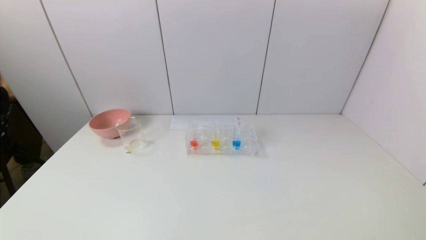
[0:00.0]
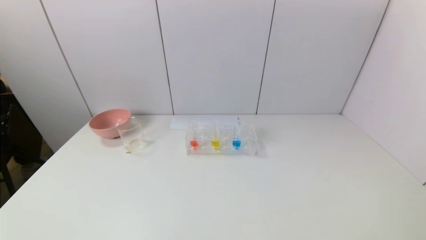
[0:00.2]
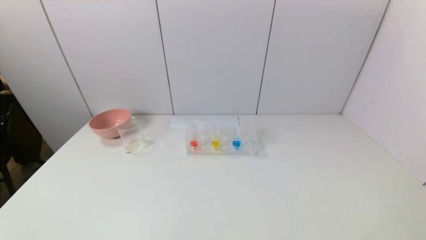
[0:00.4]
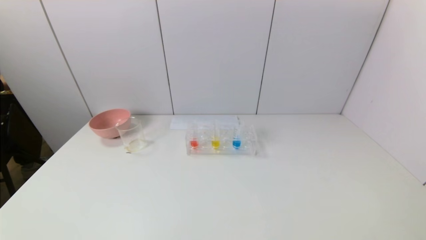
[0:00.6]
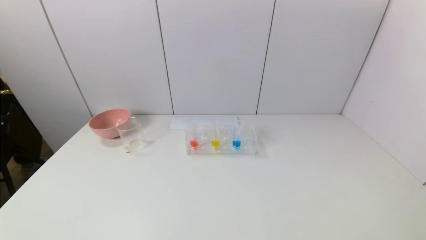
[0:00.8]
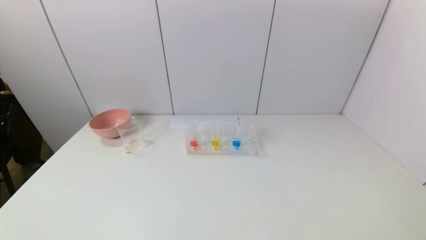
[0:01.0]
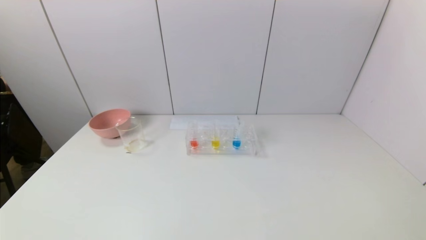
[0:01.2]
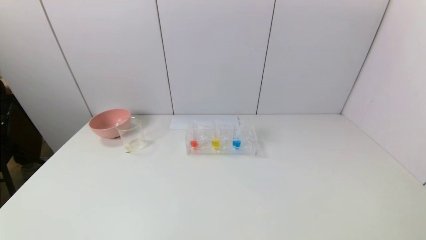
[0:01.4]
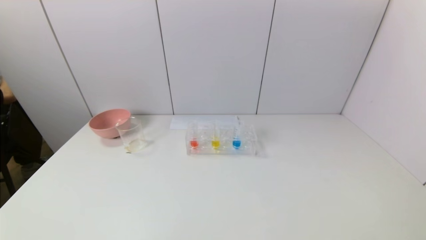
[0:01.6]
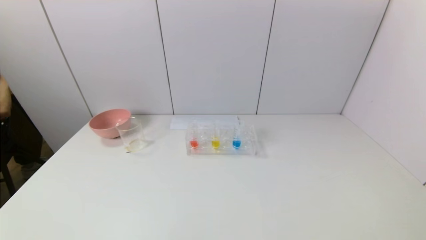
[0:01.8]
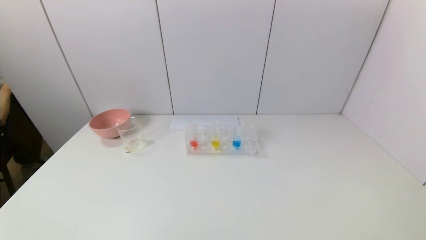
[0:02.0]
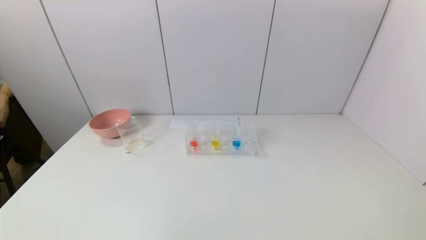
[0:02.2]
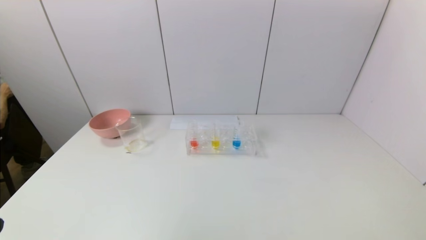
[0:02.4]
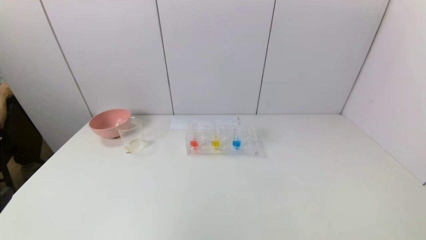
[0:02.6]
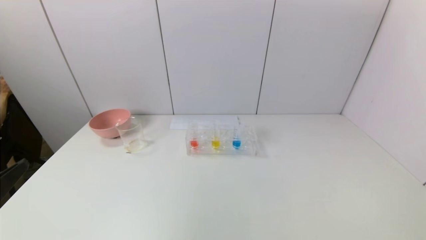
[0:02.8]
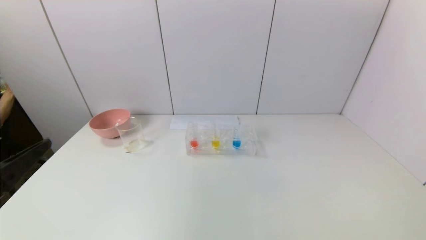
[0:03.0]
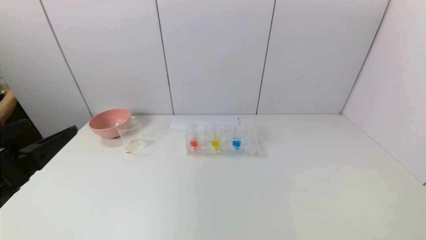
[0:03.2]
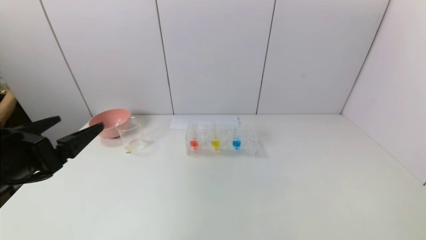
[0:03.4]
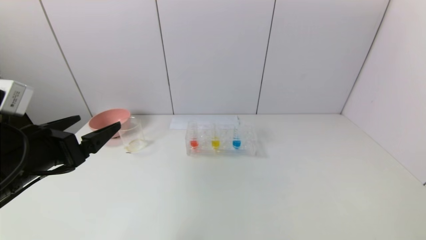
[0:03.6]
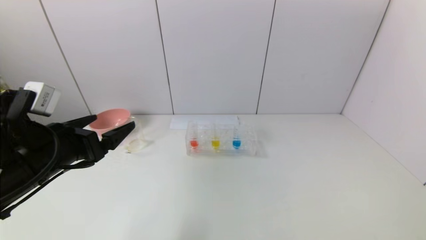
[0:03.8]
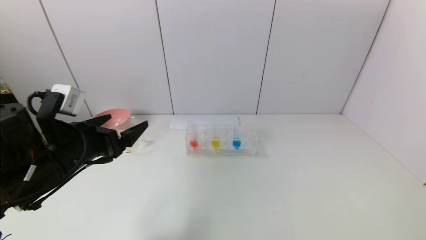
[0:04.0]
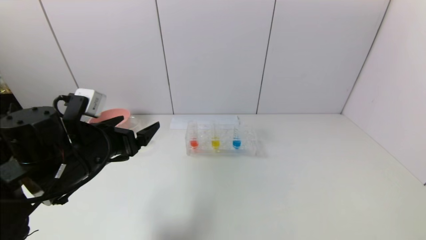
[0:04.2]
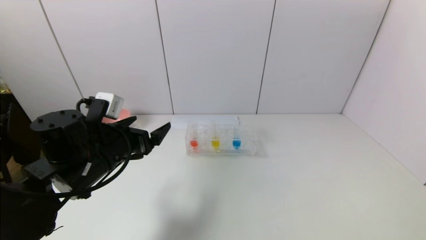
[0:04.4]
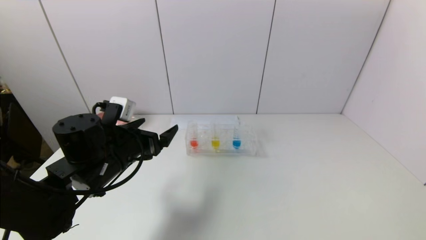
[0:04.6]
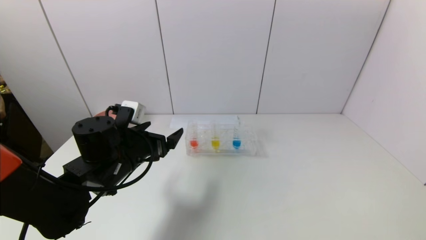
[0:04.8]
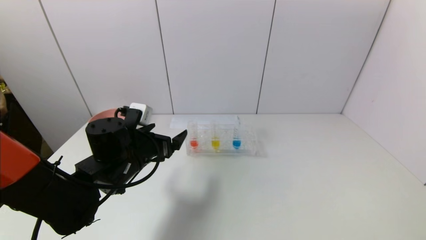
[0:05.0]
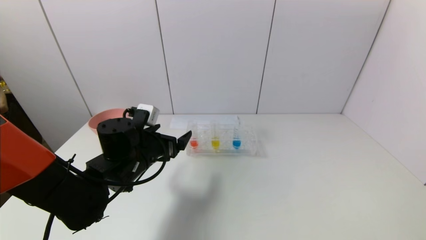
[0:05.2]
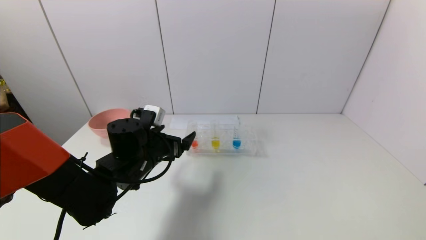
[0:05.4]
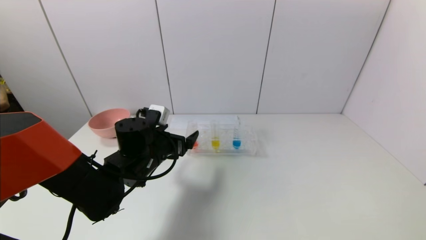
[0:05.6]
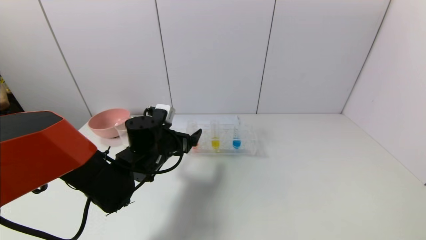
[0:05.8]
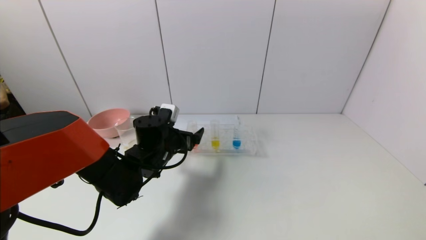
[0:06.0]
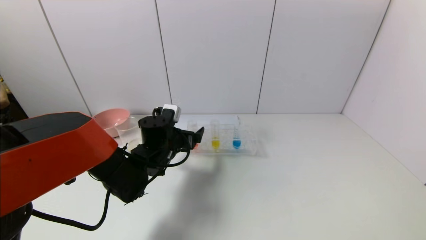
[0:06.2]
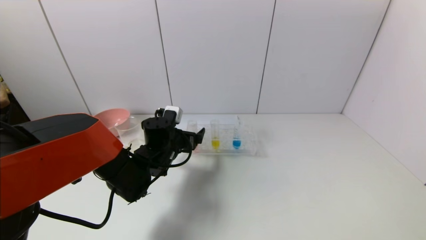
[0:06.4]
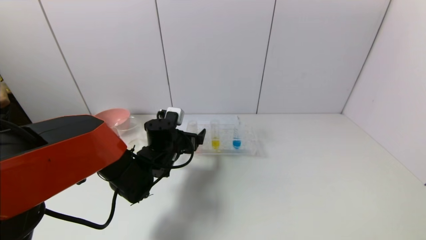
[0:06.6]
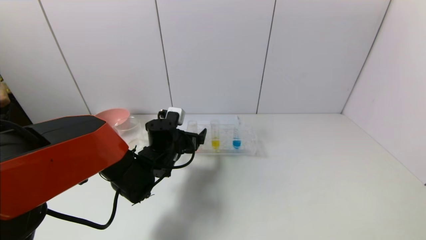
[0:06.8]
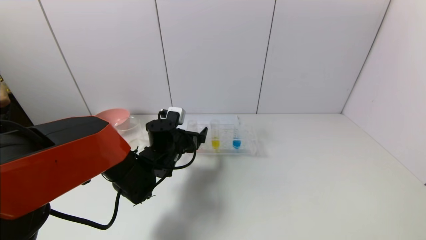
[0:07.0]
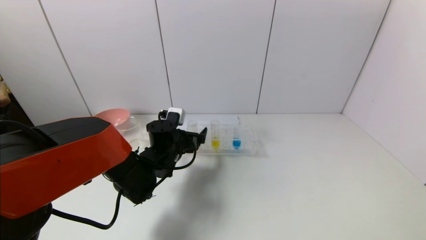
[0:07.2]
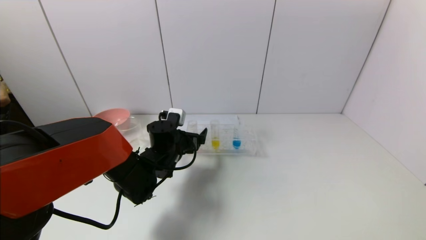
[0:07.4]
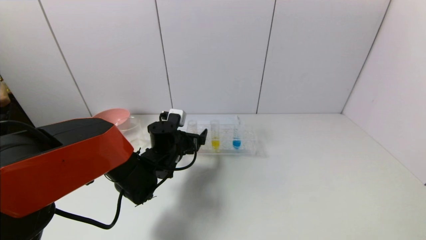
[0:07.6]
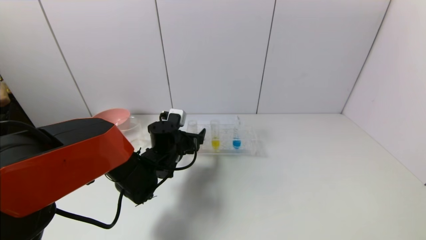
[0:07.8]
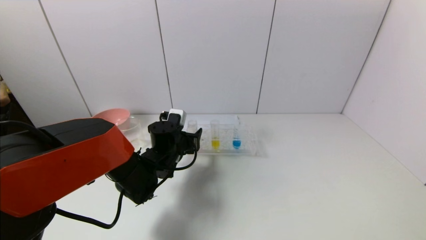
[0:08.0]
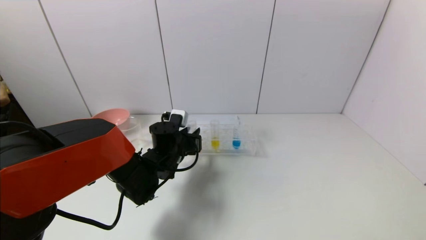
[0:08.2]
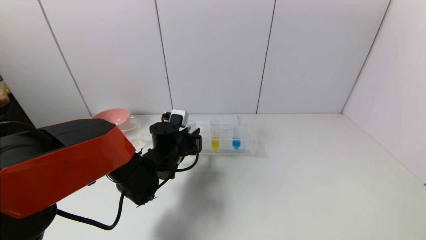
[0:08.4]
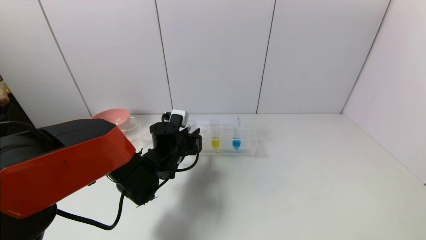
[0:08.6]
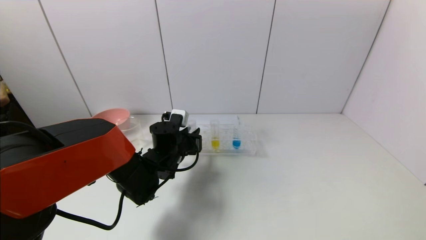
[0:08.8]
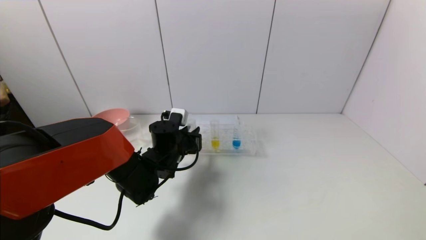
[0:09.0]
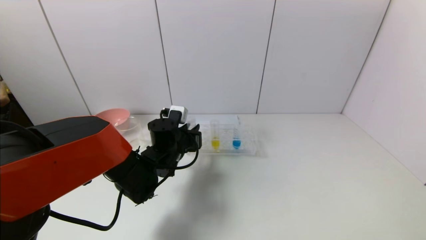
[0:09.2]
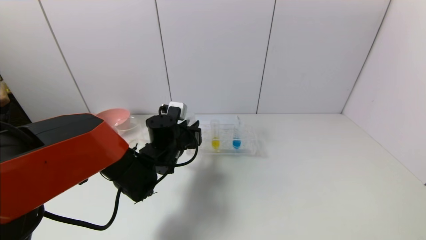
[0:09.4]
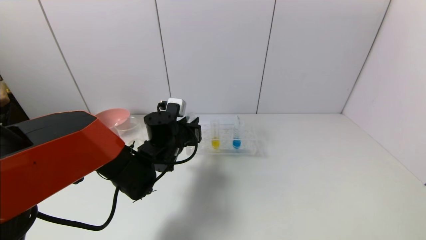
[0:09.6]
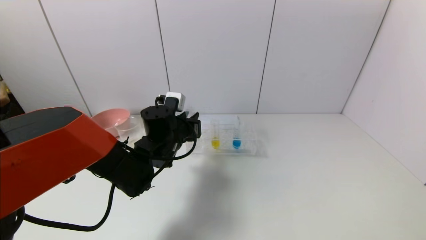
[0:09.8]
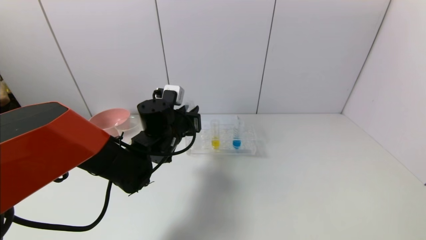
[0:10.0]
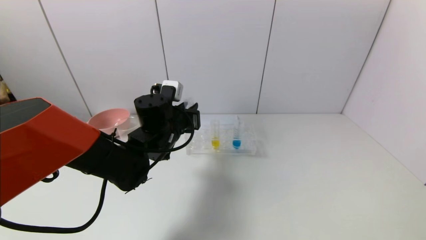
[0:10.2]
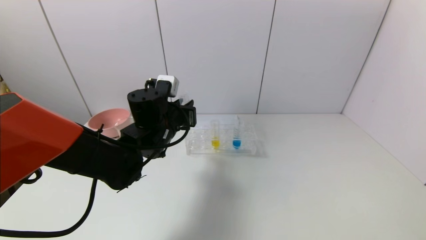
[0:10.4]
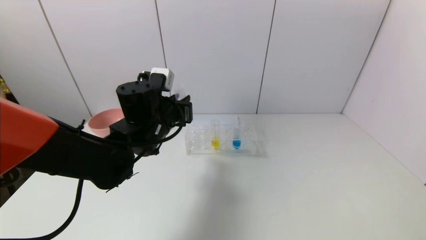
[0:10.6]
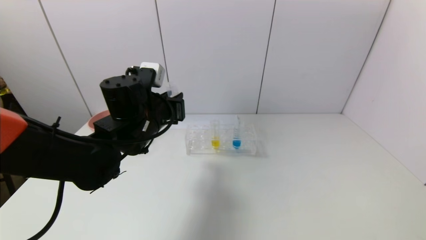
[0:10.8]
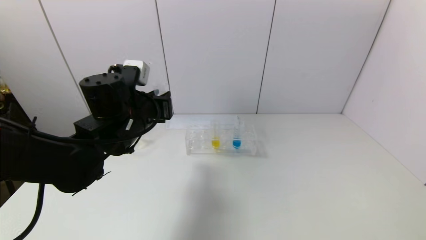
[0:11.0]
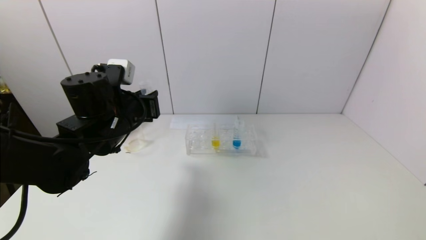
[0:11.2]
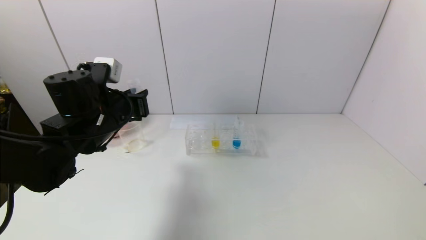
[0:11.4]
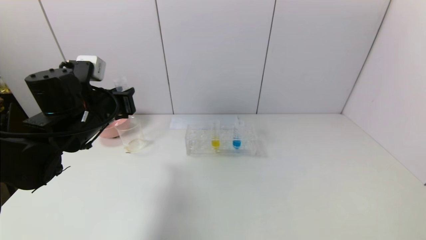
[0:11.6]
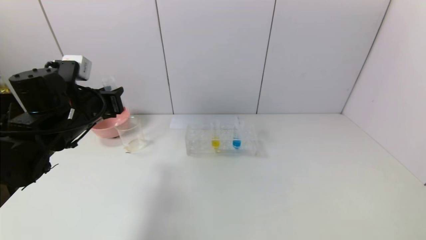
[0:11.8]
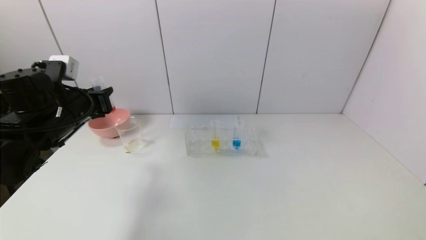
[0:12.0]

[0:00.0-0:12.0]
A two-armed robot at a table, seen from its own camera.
Task of the whole recording: pick up the test tube with yellow pigment and the test tube with red pigment by grippers and pour them into the beaker.
Step, 0:00.0 to 0:08.4: Grasp the red reagent with the left gripper.
0:00.0 to 0:01.6: Neither gripper changes place.
0:01.6 to 0:03.0: The left gripper heads upward and forward, covering roughly 20 cm.
0:03.0 to 0:04.4: The left gripper heads forward and to the right, covering approximately 20 cm.
0:04.4 to 0:06.0: The left gripper travels forward, to the right and downward by about 15 cm.
0:06.0 to 0:07.6: There are only small adjustments of the grippers.
0:07.6 to 0:09.0: The left gripper closes.
0:09.0 to 0:10.4: The left gripper is displaced upward by some 10 cm.
0:10.4 to 0:12.0: The left gripper is displaced to the left by about 20 cm.

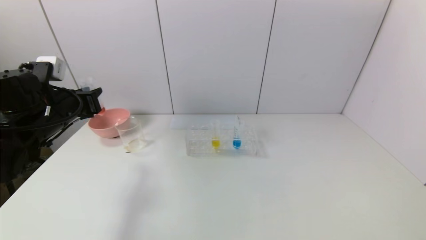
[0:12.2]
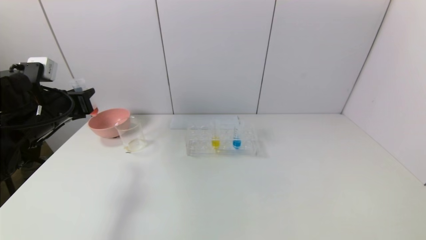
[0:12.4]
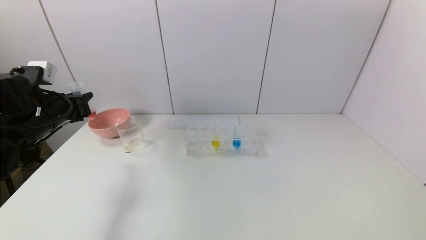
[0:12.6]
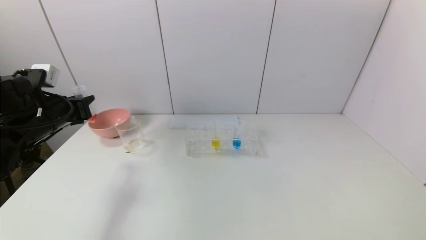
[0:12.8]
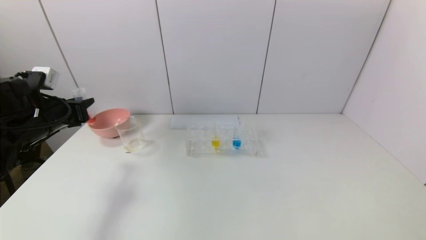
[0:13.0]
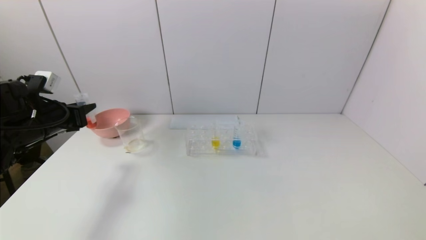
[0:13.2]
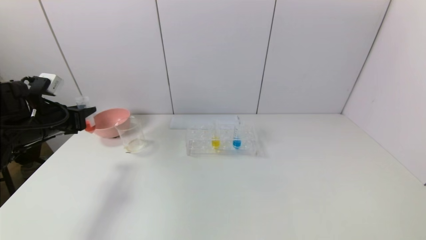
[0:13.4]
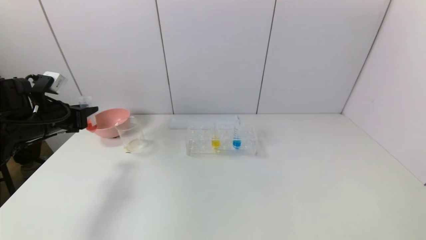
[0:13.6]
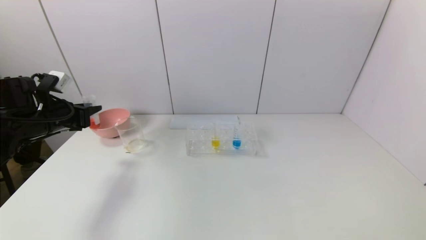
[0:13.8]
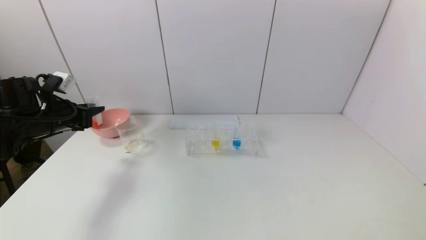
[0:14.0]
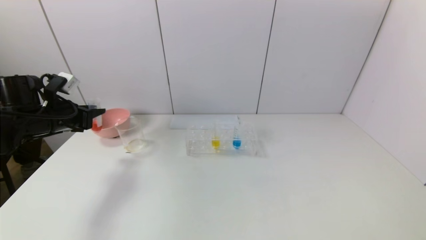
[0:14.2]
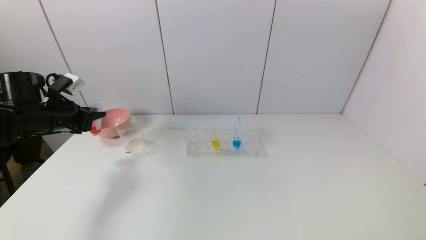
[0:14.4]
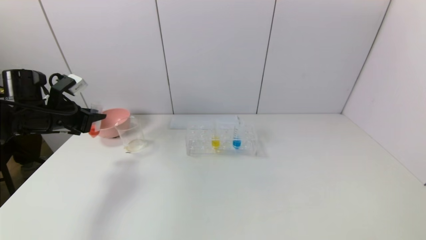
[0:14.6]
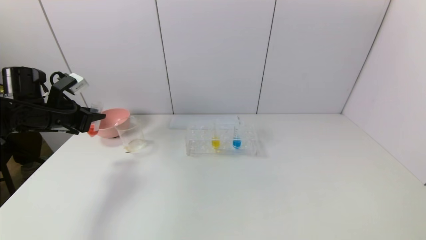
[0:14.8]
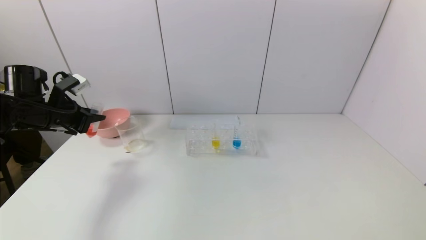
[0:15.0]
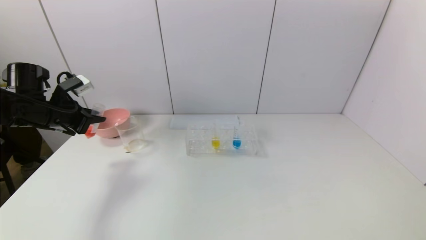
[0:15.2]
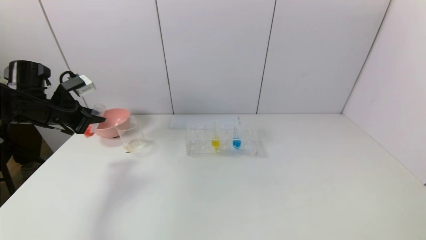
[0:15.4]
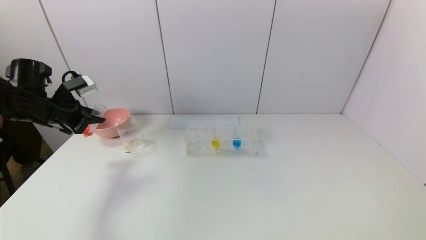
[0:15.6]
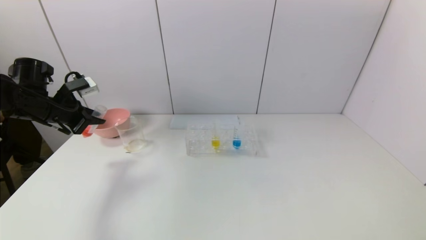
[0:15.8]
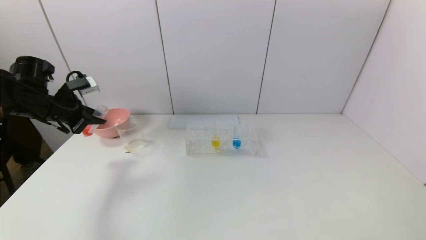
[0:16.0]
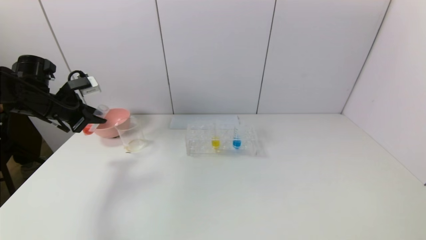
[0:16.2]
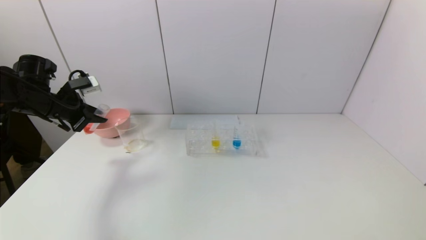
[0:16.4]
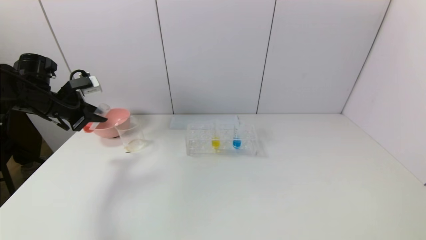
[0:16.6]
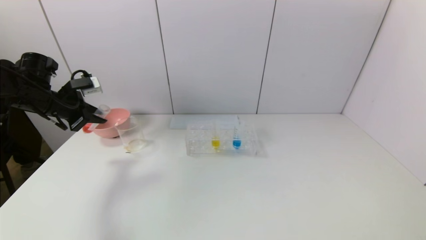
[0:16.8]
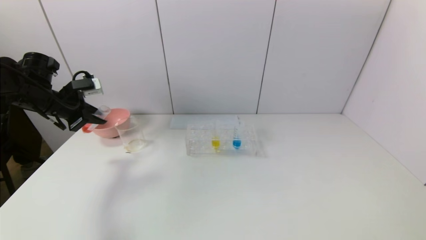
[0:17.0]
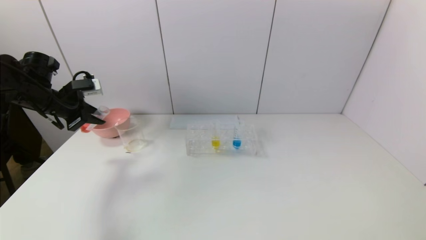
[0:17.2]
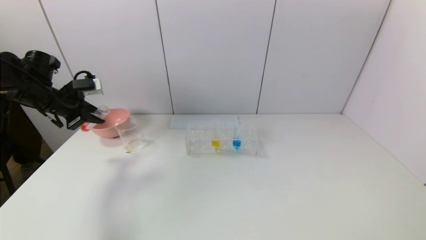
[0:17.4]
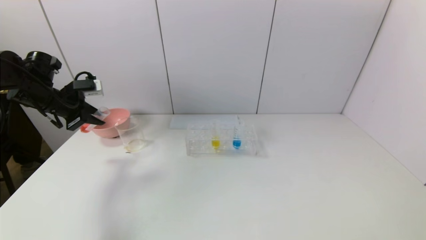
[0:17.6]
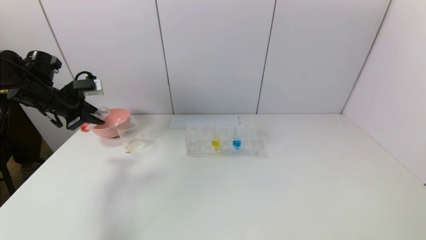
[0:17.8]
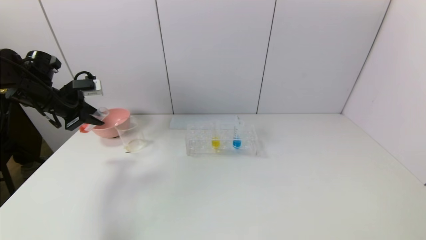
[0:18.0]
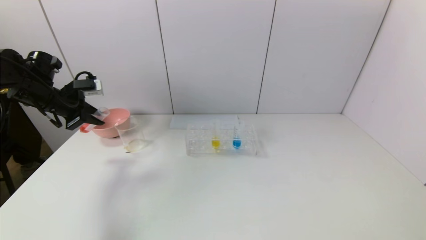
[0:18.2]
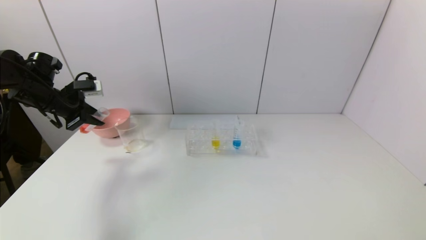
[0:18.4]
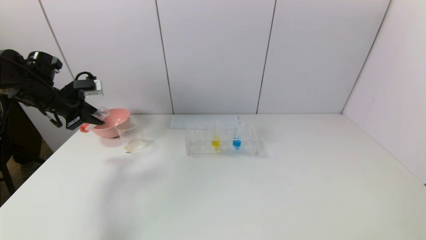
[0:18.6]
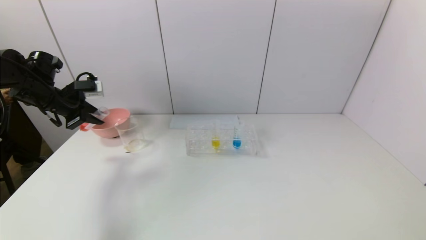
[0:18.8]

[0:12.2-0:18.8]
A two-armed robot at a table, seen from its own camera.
Task of the whole recording: pick up the test tube with yellow pigment and the test tube with red pigment by grippers and pour them into the beaker.
0:12.2 to 0:13.8: The left gripper moves to the left, some 5 cm.
0:17.2 to 0:18.8: There are only small adjustments of the grippers.
